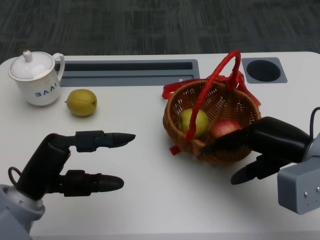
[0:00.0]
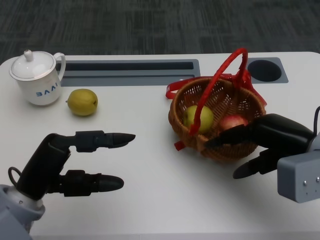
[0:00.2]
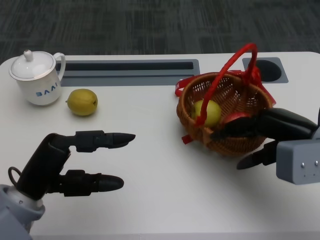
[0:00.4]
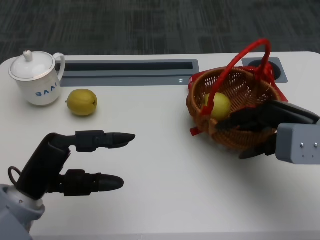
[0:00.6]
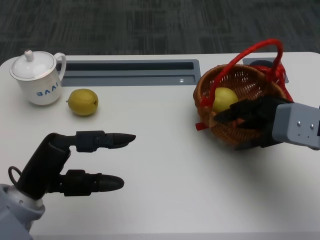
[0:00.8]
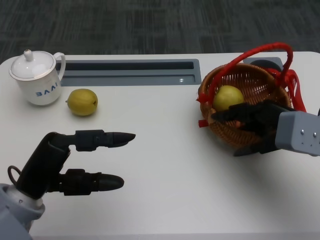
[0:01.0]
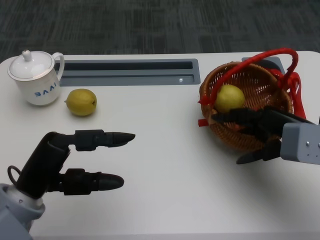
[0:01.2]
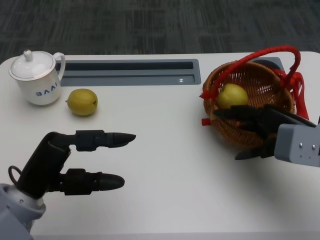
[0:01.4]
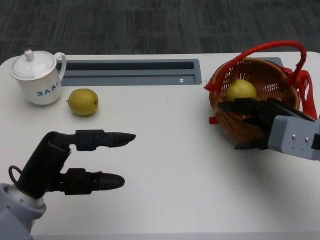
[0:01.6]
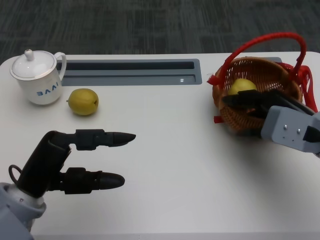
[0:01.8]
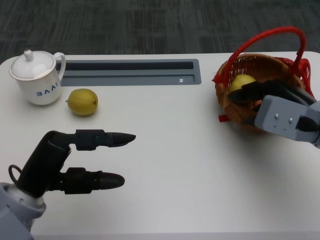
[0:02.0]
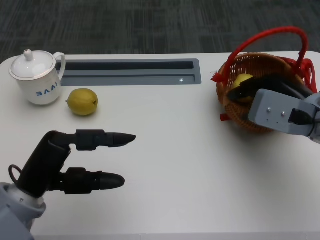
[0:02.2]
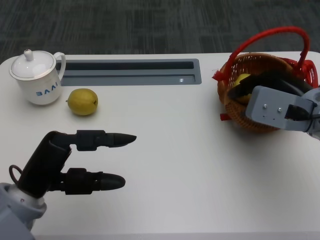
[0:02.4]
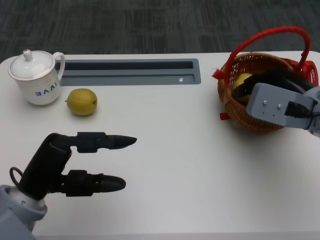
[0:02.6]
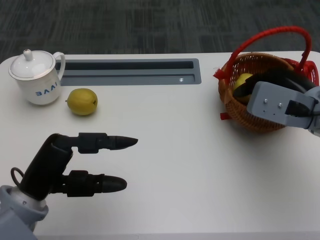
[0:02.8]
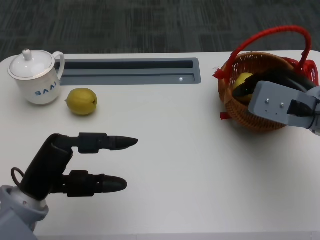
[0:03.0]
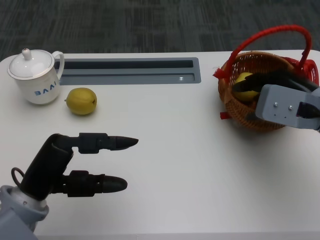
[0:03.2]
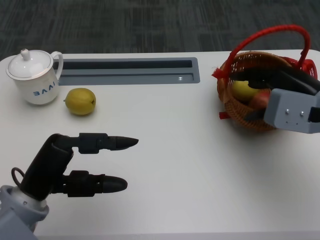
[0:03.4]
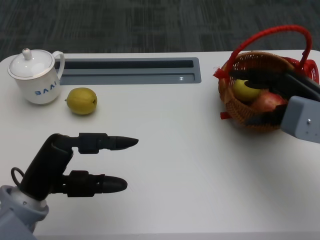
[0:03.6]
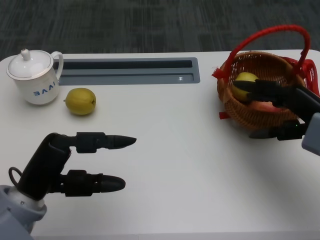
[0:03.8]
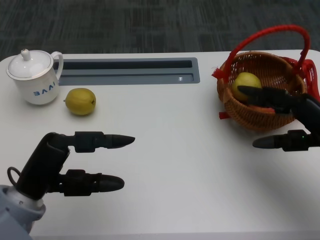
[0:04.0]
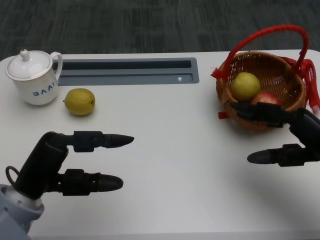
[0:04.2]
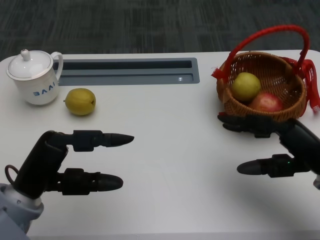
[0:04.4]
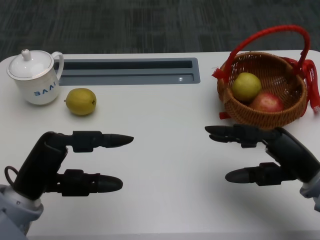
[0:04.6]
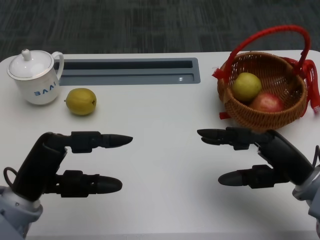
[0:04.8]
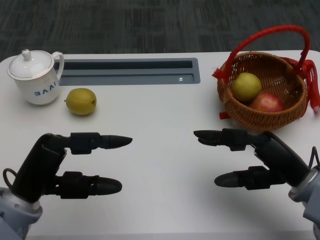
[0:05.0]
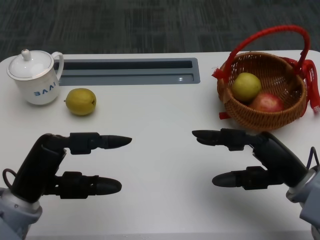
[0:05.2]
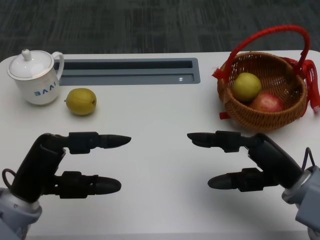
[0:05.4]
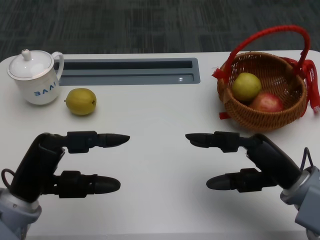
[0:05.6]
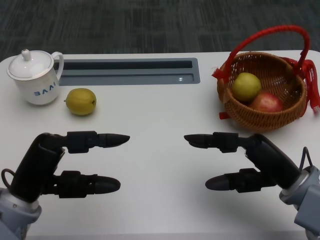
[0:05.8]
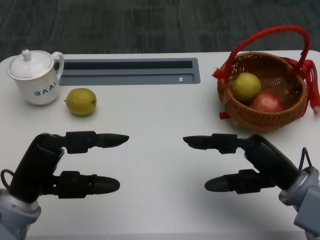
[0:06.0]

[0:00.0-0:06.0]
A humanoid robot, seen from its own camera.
0:01.6 to 0:03.0: The hands make only small movements.
0:03.0 to 0:04.4: The right hand moves backward, some 10 cm.
0:04.4 to 0:06.0: The right hand shifts approximately 5 cm to the left.

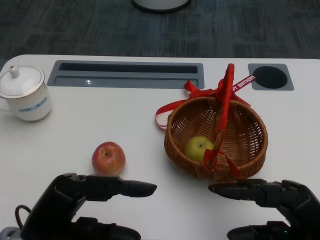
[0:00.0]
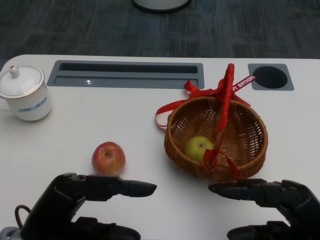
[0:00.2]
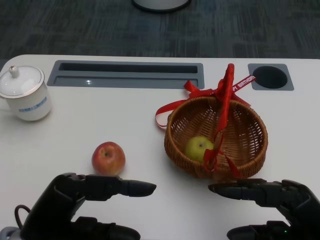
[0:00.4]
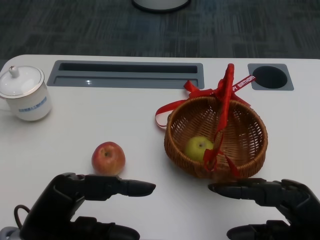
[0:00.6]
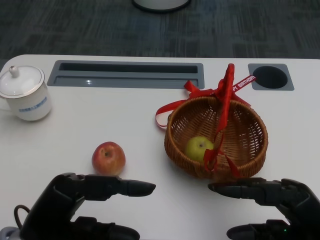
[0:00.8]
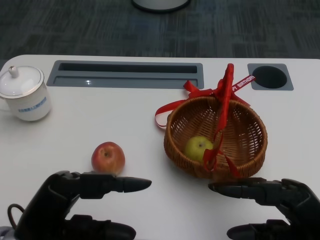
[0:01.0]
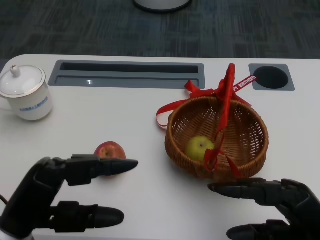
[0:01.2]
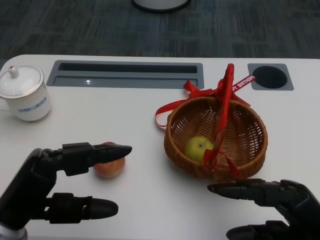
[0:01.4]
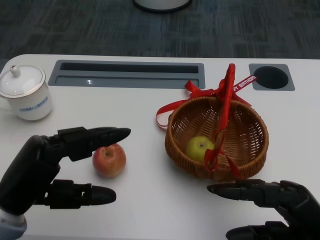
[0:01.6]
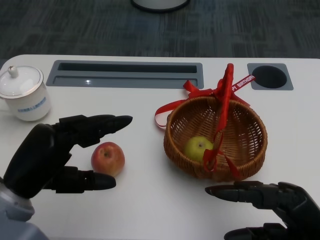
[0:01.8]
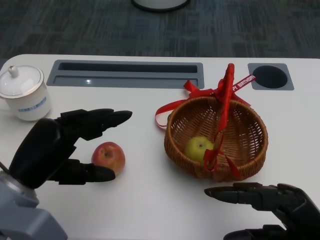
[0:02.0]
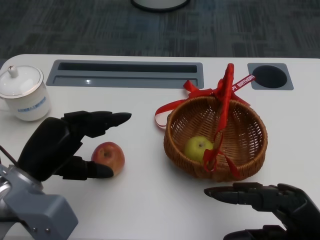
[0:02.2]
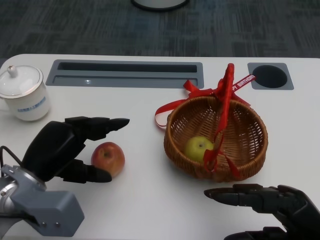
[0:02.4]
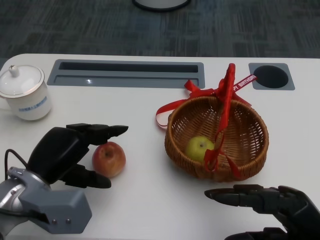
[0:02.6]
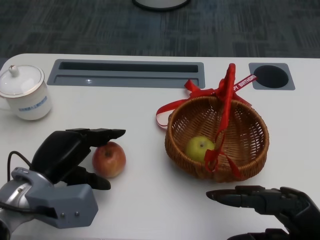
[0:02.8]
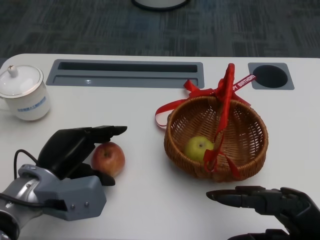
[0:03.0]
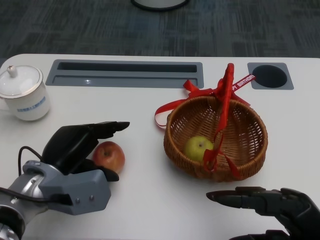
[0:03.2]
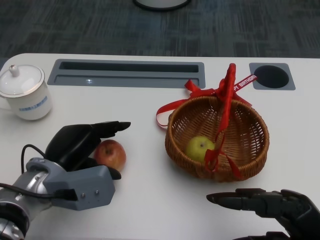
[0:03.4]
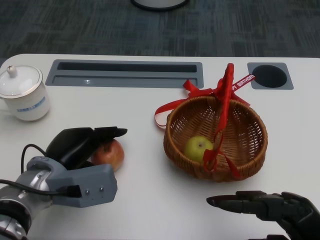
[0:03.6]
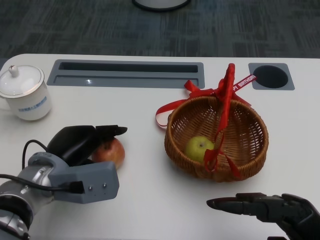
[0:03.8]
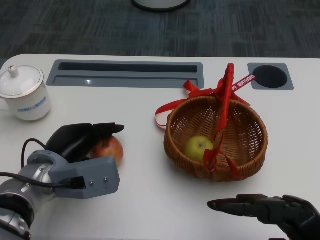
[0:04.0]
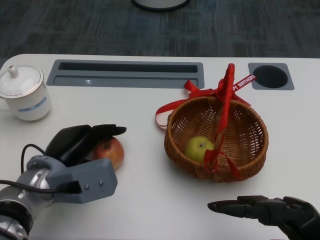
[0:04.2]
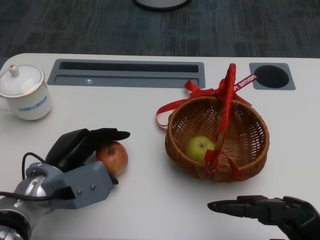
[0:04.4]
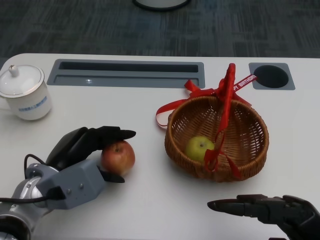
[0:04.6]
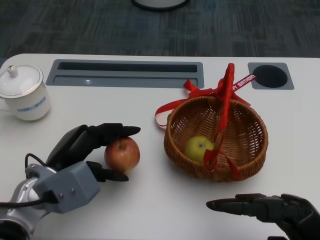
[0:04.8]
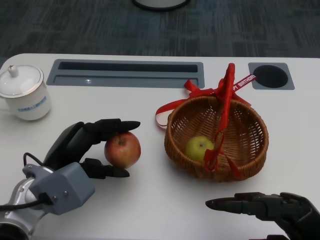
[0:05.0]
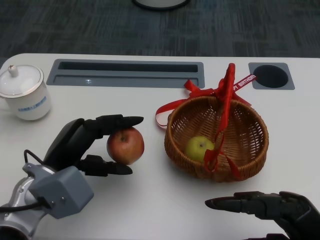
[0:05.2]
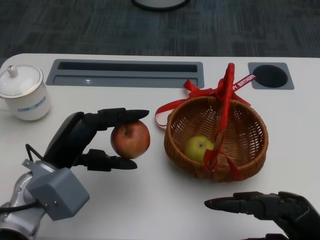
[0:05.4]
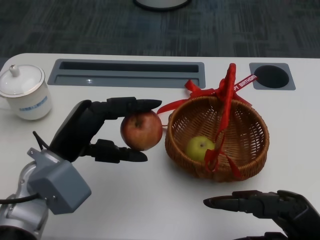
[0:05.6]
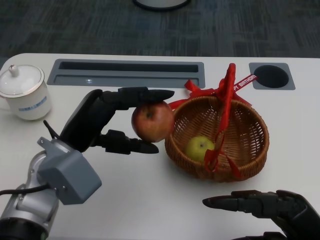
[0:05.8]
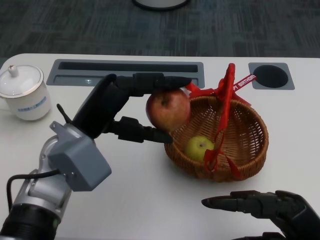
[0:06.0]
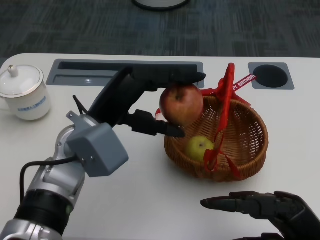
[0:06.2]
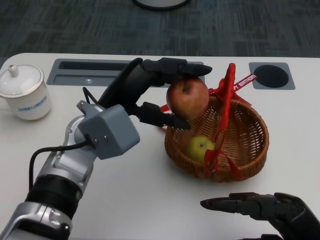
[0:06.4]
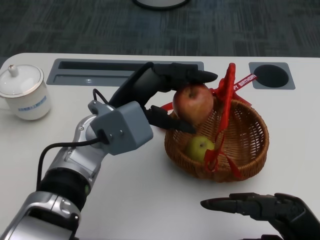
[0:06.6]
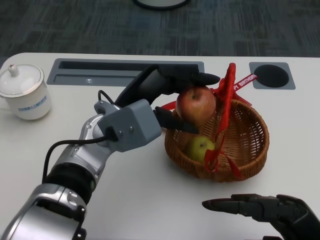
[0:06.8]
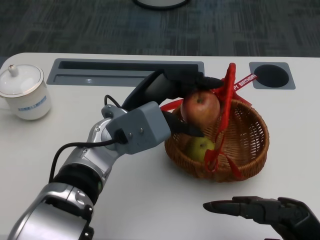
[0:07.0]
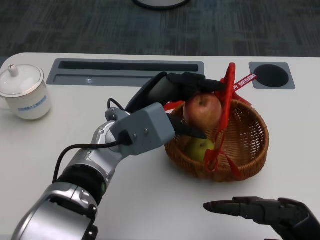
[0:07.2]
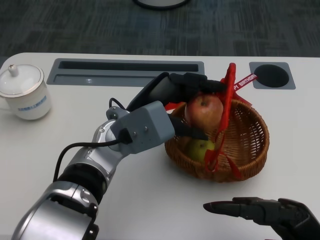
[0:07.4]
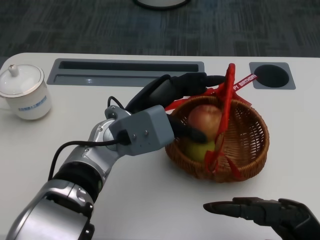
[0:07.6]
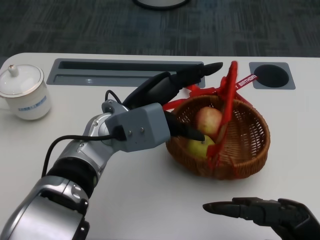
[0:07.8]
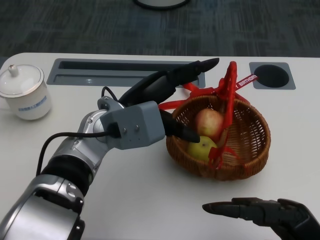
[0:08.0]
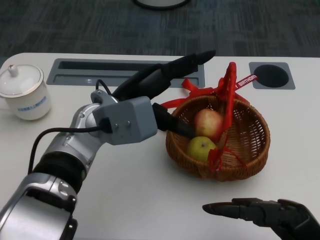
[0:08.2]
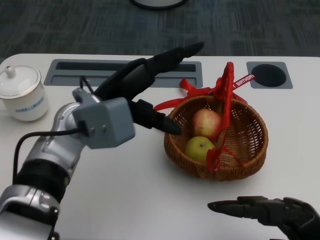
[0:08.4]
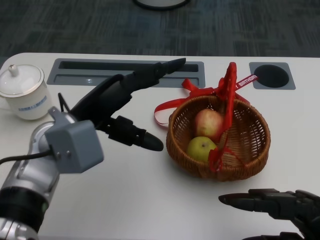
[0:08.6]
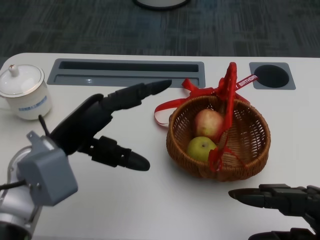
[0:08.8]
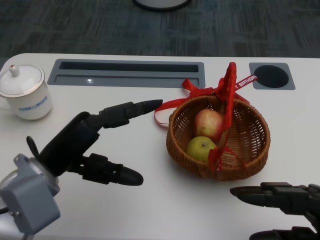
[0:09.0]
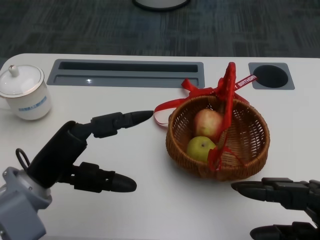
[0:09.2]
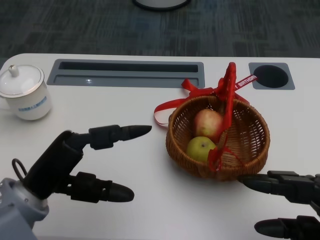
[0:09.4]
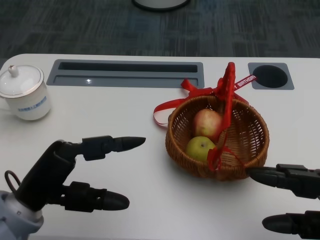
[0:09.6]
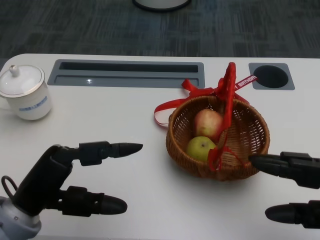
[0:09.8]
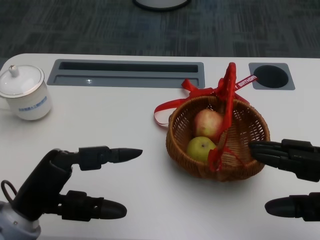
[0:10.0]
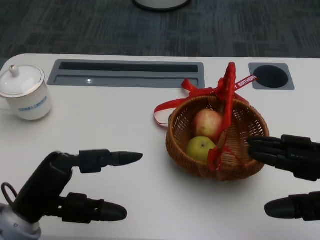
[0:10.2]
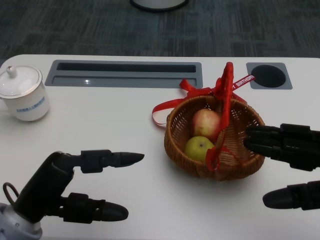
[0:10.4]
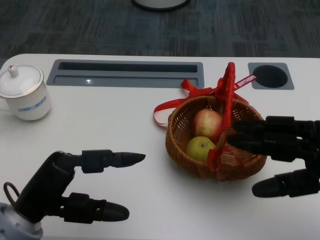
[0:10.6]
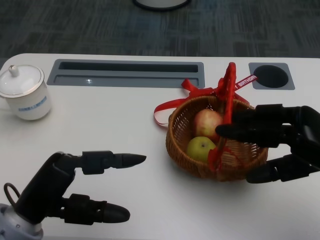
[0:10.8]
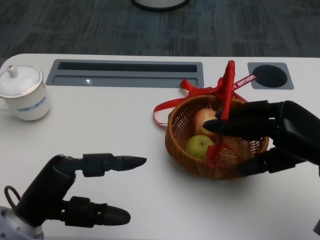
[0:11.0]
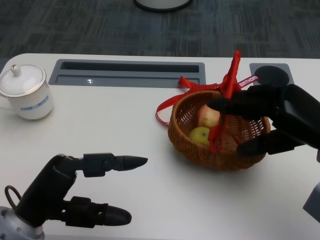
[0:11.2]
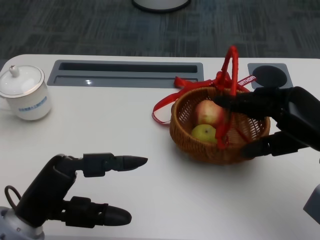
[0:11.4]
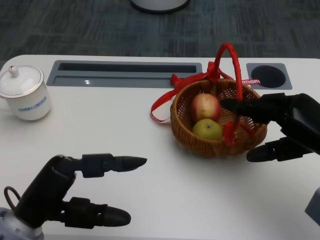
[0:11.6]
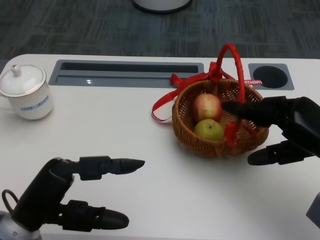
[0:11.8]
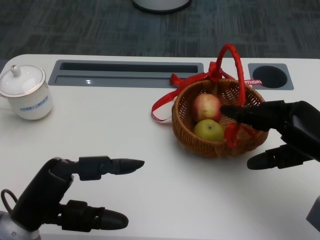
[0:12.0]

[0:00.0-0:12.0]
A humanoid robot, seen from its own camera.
Step, 0:00.8 to 0:03.4: Grasp the apple with the left gripper.
Step, 0:03.6 to 0:06.0: Place the apple into the basket with the left gripper.
0:01.6 to 0:03.0: The left hand moves forward and downward, about 10 cm.
0:03.0 to 0:04.4: The hands make only small movements.
0:04.4 to 0:06.0: The left hand moves upward, some 10 cm.
0:06.0 to 0:07.6: The left hand heads to the right, covering roughly 5 cm.
0:07.6 to 0:09.0: The left hand heads to the left and backward, covering roughly 15 cm.
0:09.0 to 0:10.4: The left hand shifts roughly 5 cm backward. Meanwhile the right hand moves roughly 5 cm.
0:10.4 to 0:12.0: The right hand moves forward, some 10 cm.

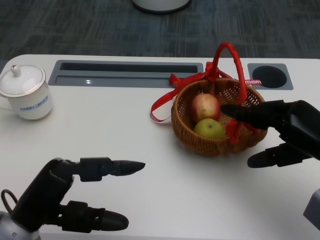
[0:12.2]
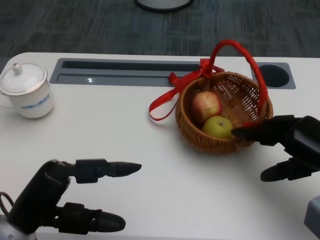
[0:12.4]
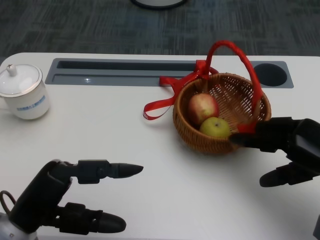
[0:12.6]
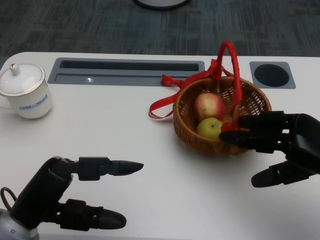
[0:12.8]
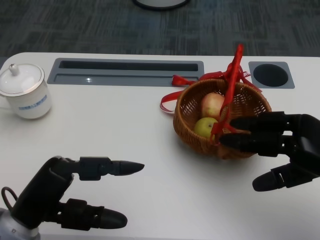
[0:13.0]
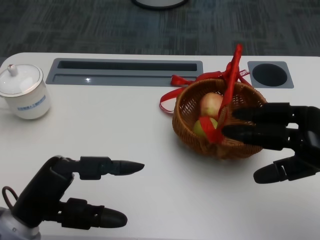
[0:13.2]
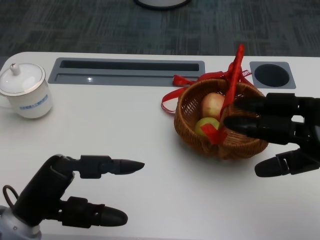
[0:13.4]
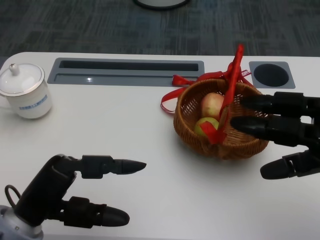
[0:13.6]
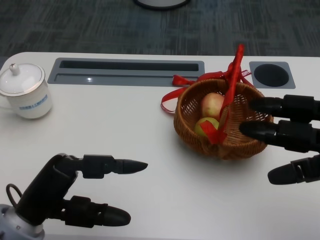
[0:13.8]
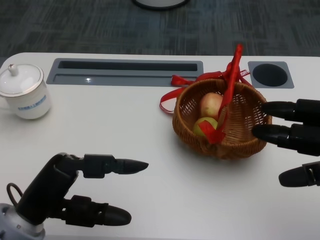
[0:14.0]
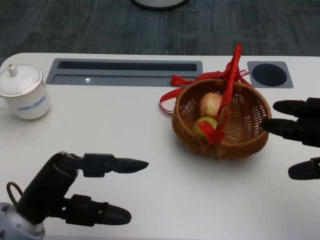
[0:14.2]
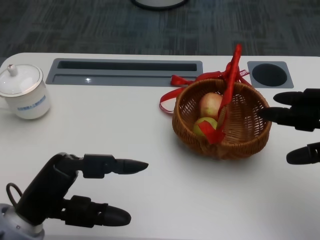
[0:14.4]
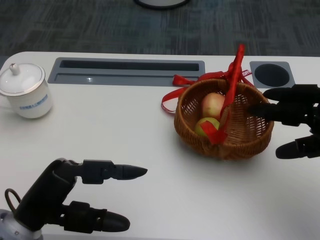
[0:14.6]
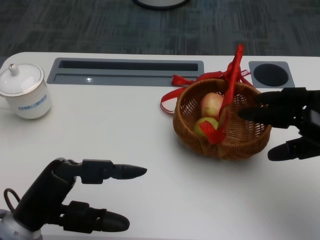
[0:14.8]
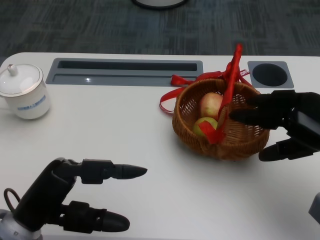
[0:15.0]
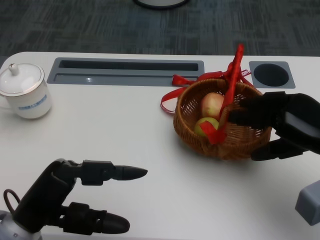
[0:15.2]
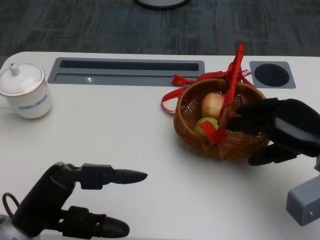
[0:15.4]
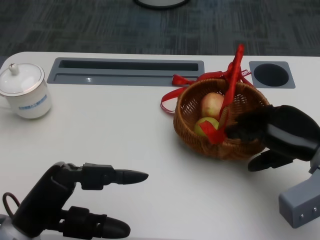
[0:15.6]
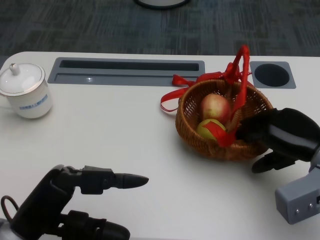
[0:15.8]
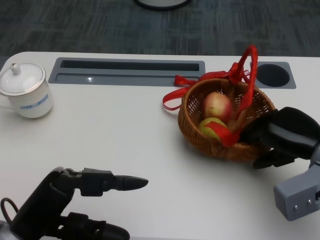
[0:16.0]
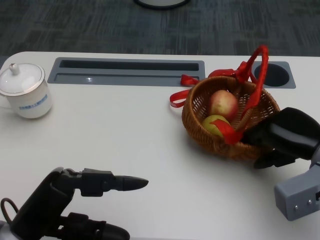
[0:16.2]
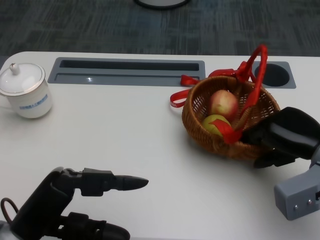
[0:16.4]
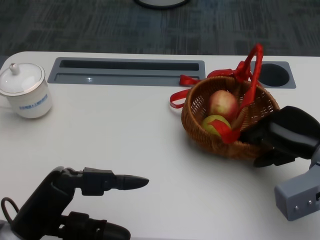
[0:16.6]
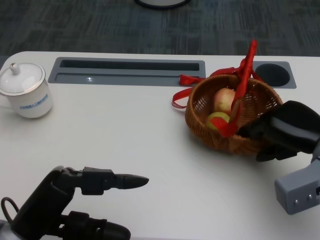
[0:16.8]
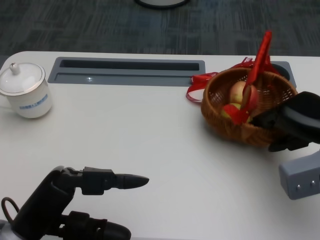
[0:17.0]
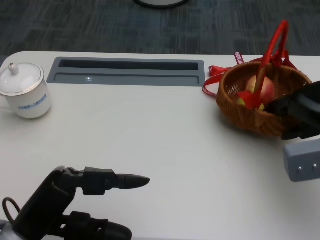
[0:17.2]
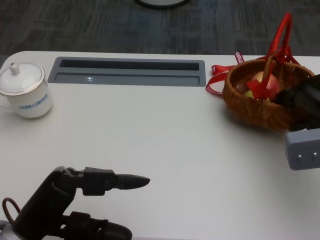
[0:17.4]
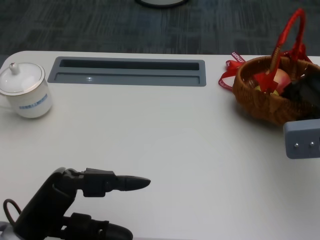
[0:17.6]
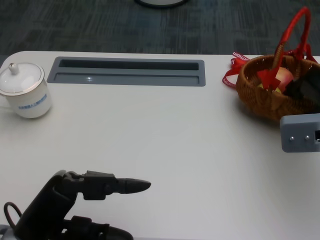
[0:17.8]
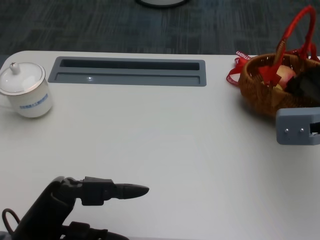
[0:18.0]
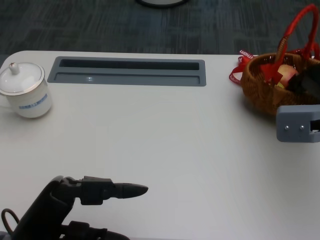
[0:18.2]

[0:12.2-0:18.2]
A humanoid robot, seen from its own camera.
Step, 0:13.4 to 0:15.0: Move the basket to the front of the table with the right gripper.
0:12.2 to 0:13.8: The right hand shifts by about 5 cm.
0:13.8 to 0:15.2: The right hand goes some 5 cm forward.
0:15.2 to 0:16.6: There are only small adjustments of the hands.
0:16.6 to 0:18.2: The right hand moves upward, some 5 cm.
